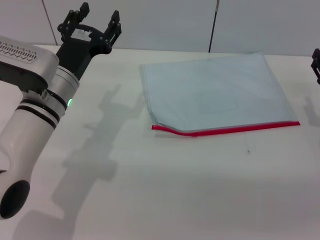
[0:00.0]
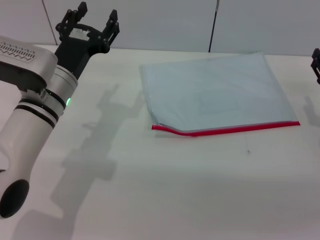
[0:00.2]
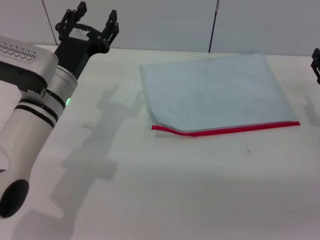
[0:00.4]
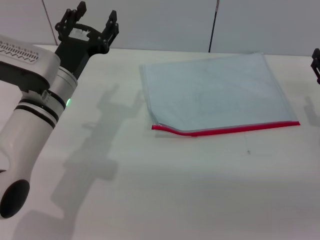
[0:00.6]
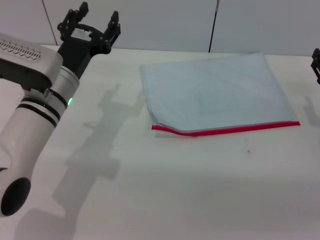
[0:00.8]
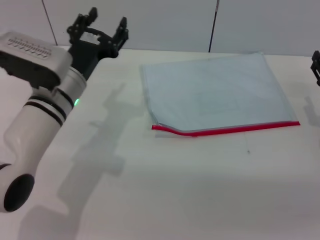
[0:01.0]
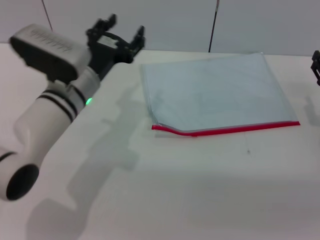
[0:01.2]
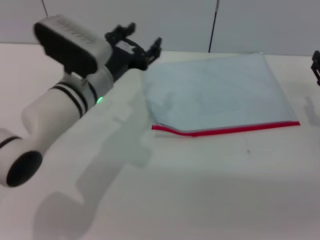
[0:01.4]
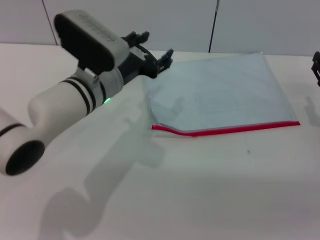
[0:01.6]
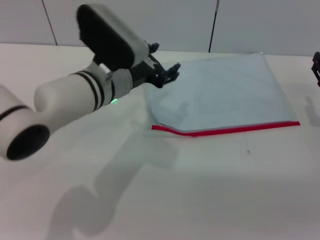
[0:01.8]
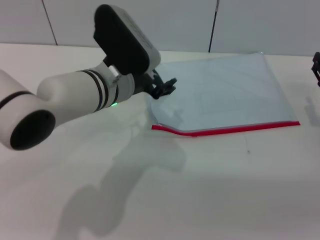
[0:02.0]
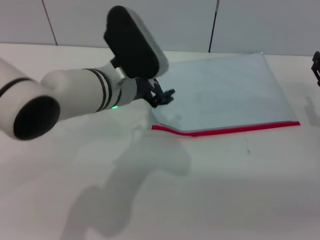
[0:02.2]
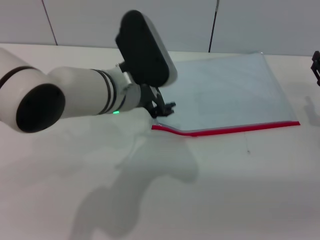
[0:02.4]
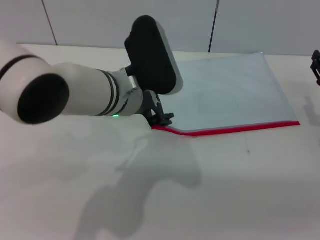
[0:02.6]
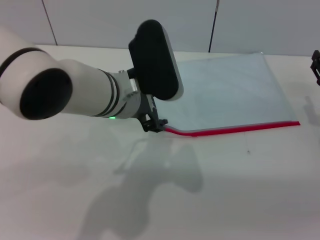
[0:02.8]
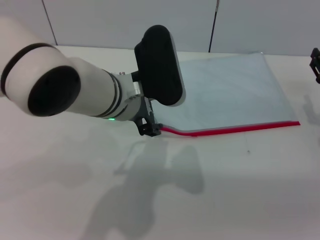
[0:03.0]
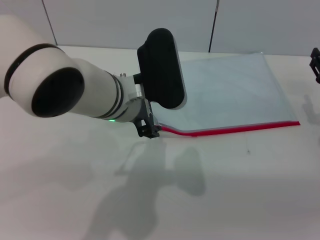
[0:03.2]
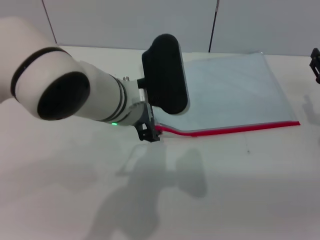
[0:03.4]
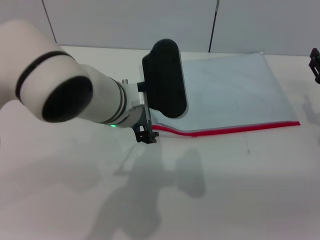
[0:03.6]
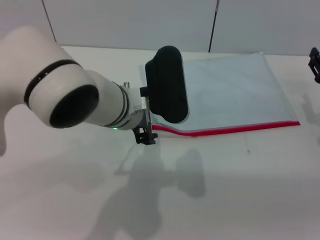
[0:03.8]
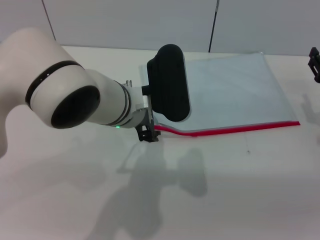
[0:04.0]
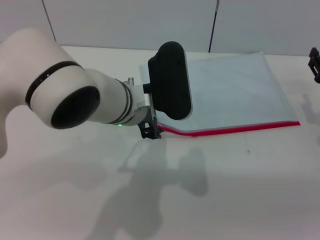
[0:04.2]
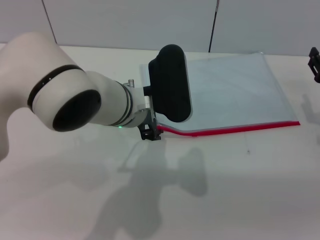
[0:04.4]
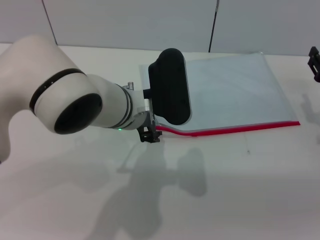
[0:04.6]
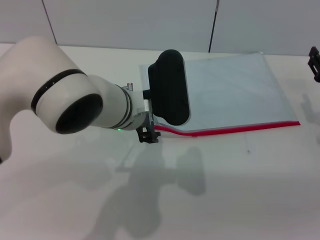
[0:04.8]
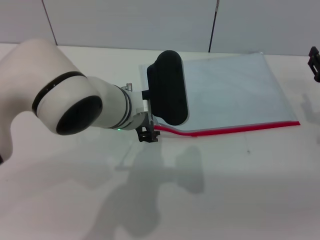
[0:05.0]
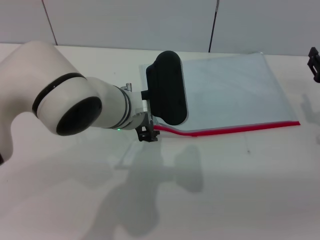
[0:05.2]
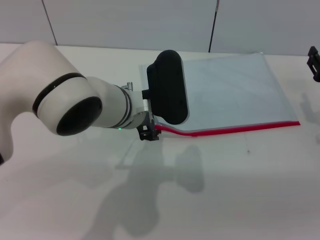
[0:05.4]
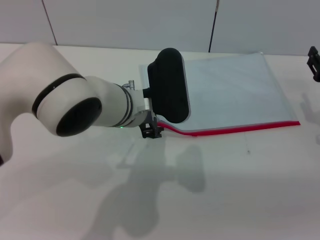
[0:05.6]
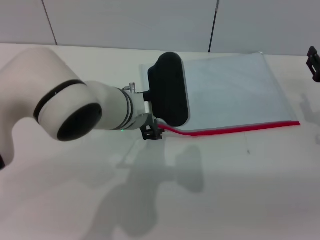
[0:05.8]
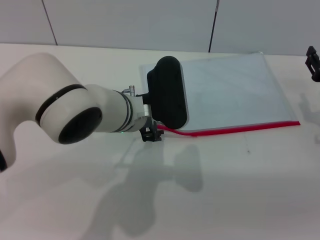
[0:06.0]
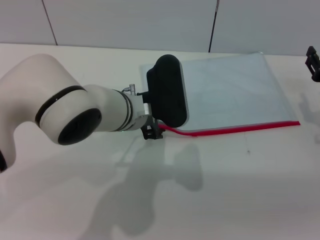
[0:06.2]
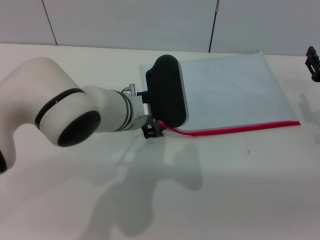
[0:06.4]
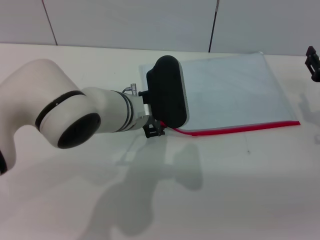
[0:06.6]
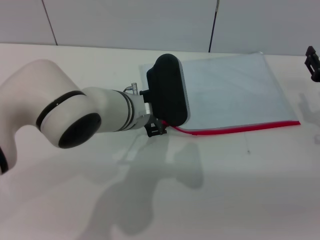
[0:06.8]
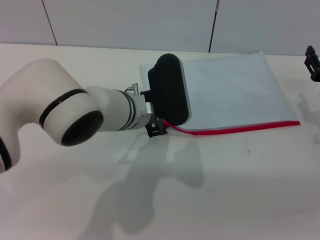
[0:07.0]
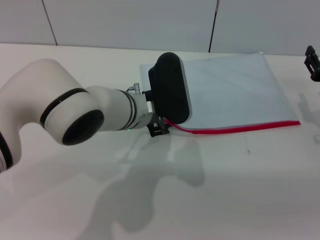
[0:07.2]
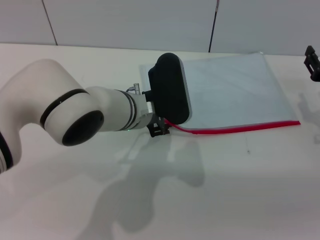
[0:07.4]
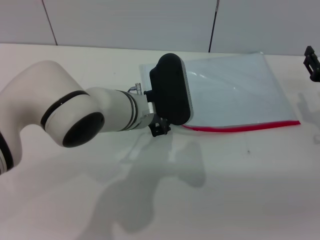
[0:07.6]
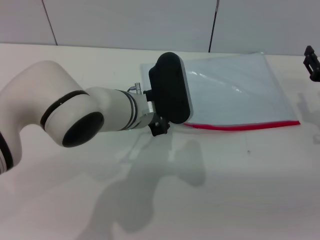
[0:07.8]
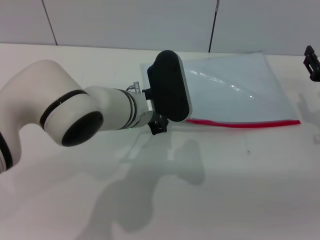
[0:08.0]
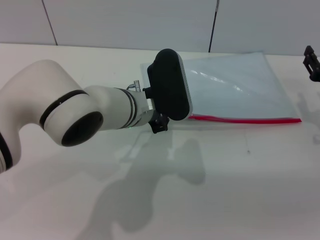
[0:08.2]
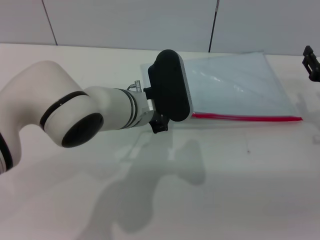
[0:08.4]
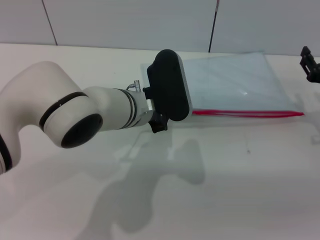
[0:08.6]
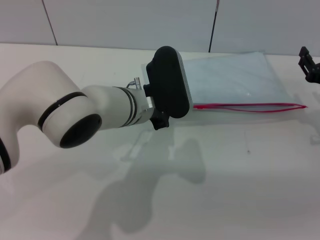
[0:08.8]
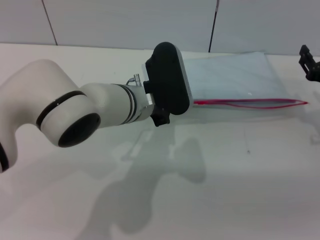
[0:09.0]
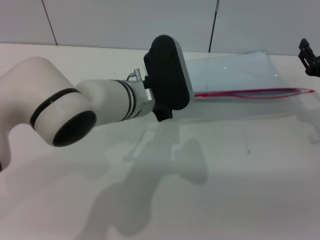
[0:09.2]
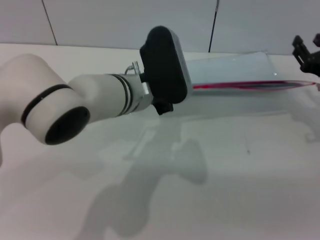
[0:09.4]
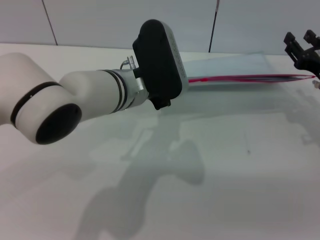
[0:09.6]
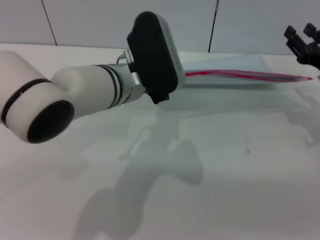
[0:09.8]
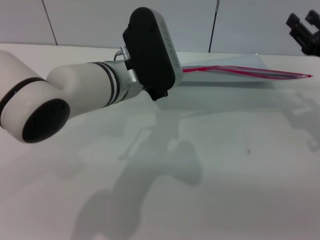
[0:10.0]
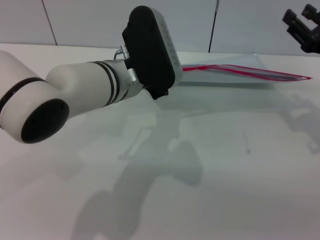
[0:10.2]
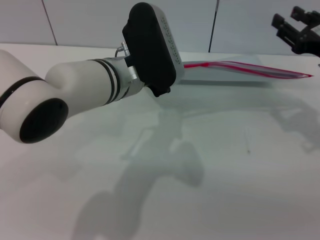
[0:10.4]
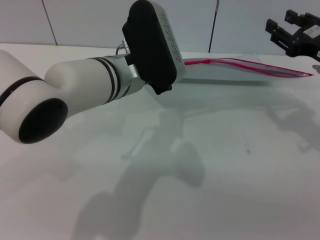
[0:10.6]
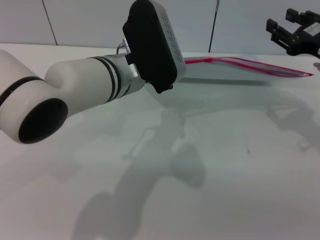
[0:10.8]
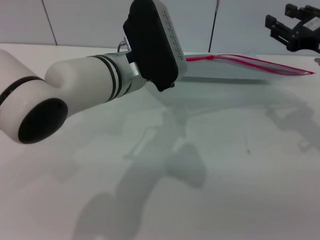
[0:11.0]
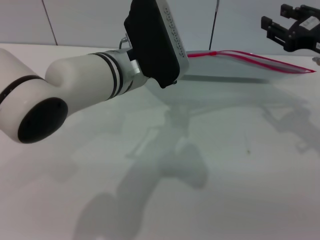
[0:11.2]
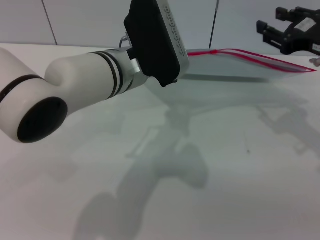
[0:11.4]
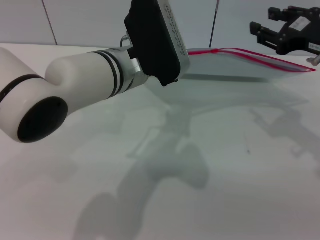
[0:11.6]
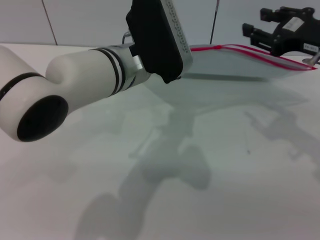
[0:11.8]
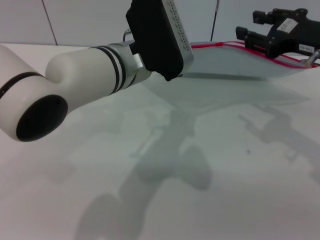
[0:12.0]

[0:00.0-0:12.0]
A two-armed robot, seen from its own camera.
Step, 0:00.0 to 0:09.4: Pick up the transparent plastic bag with the left gripper.
0:00.0 to 0:01.6: The left gripper travels to the right by roughly 5 cm.
0:01.6 to 0:03.0: The left gripper moves some 10 cm.
0:03.0 to 0:07.6: There are only small adjustments of the grippers.
0:07.6 to 0:09.0: The left gripper closes its fingers.
0:09.0 to 0:10.4: The left gripper ends up approximately 5 cm from where it was. The right gripper is displaced upward by some 10 cm.
0:10.4 to 0:12.0: The right gripper is displaced upward by approximately 5 cm.

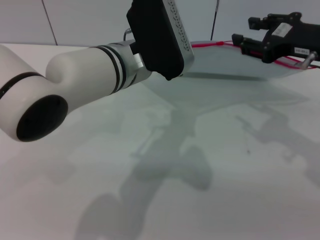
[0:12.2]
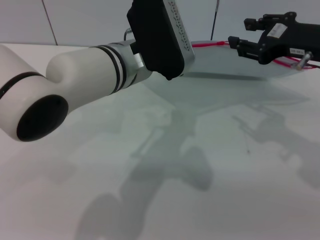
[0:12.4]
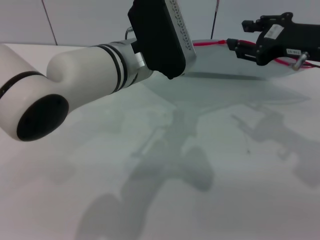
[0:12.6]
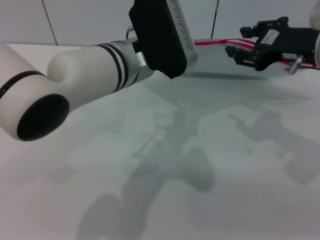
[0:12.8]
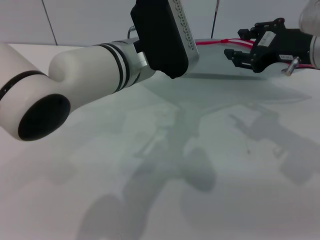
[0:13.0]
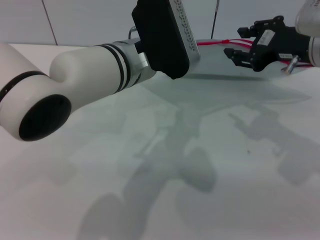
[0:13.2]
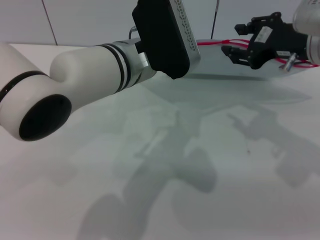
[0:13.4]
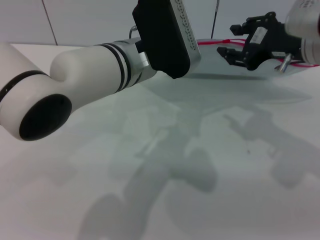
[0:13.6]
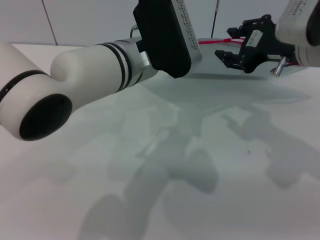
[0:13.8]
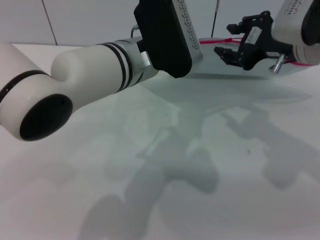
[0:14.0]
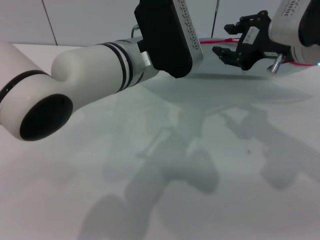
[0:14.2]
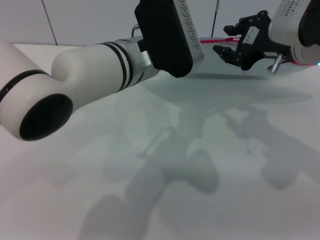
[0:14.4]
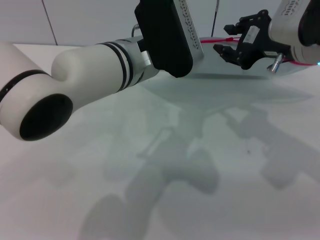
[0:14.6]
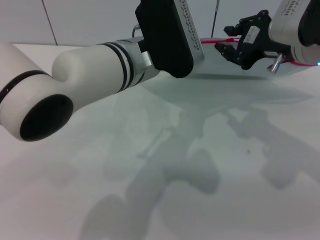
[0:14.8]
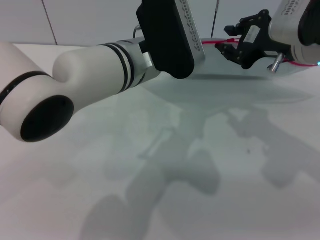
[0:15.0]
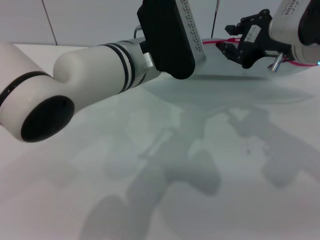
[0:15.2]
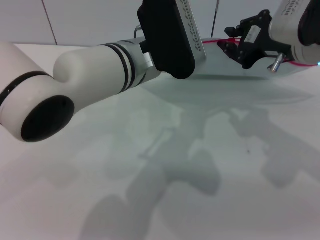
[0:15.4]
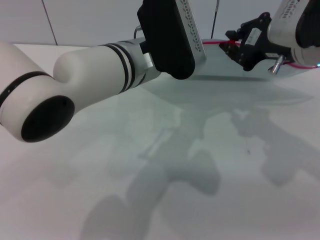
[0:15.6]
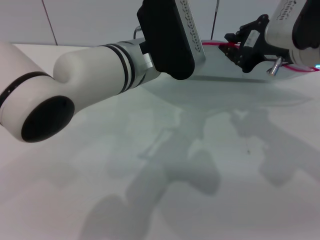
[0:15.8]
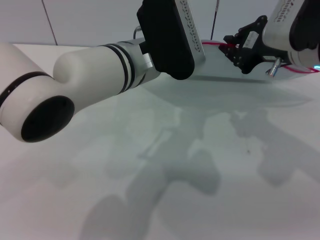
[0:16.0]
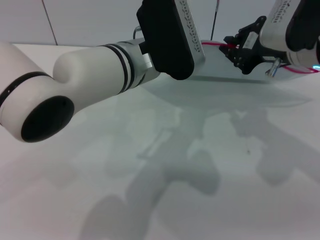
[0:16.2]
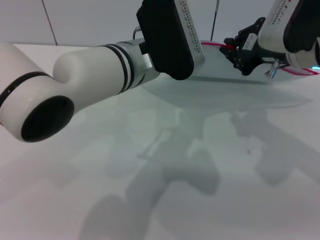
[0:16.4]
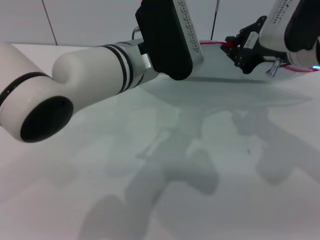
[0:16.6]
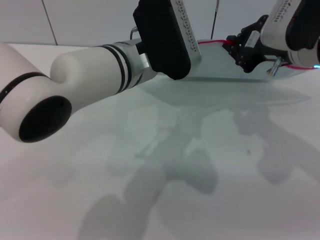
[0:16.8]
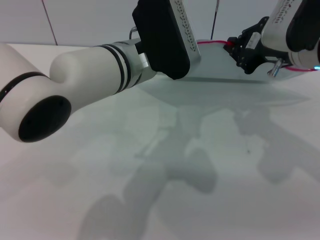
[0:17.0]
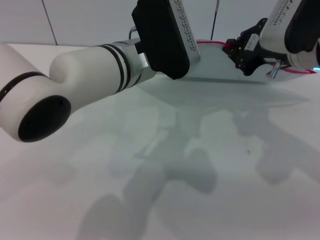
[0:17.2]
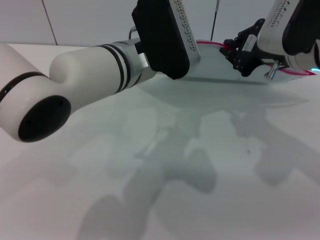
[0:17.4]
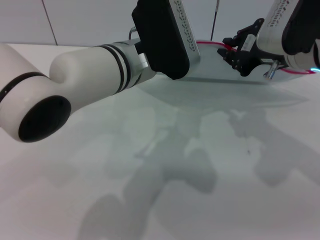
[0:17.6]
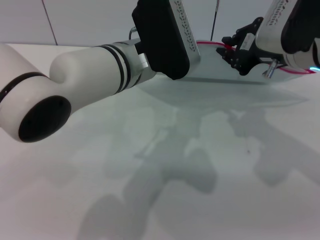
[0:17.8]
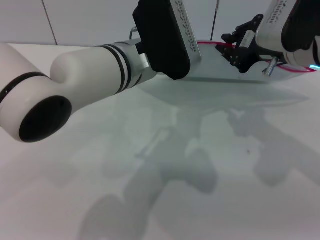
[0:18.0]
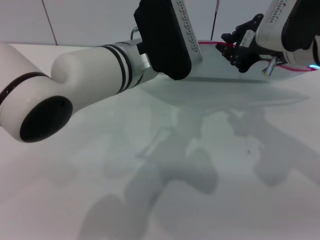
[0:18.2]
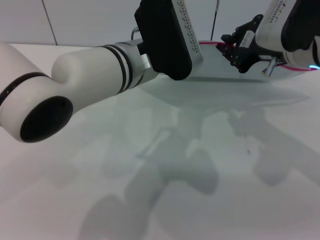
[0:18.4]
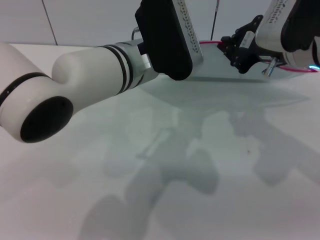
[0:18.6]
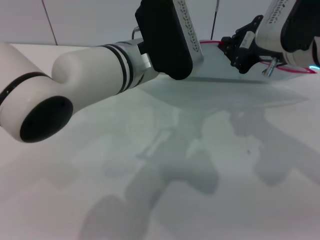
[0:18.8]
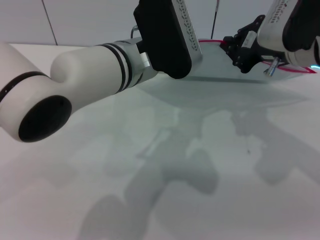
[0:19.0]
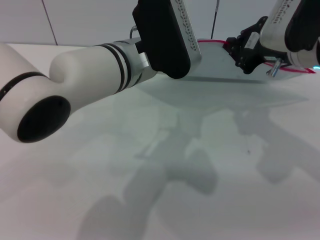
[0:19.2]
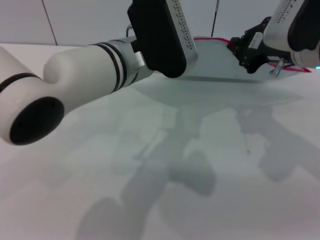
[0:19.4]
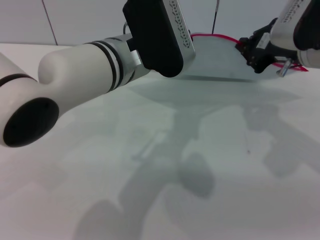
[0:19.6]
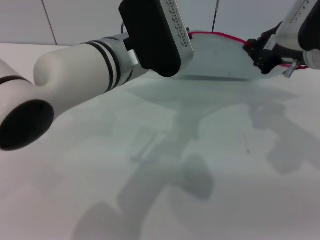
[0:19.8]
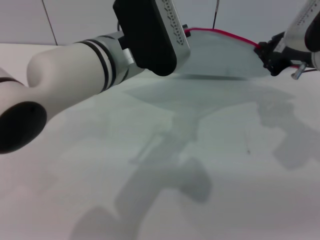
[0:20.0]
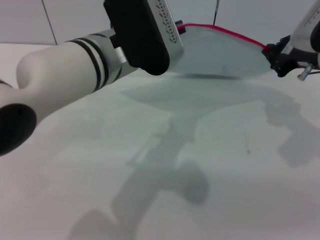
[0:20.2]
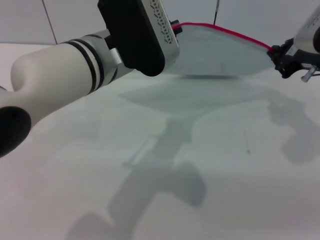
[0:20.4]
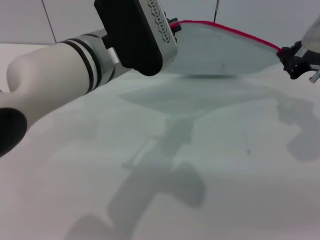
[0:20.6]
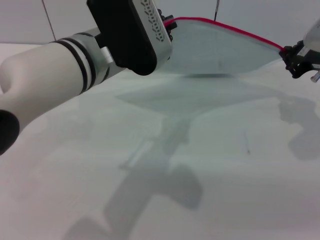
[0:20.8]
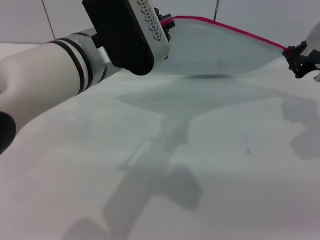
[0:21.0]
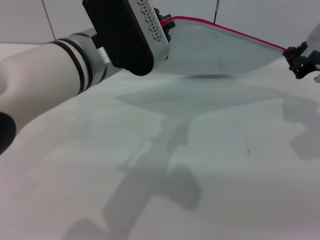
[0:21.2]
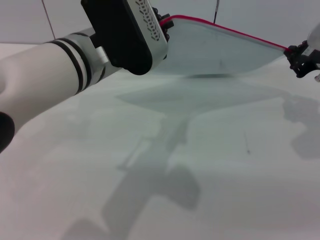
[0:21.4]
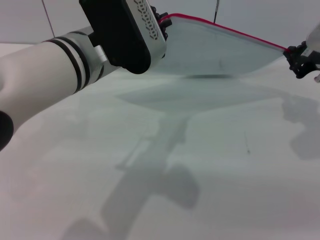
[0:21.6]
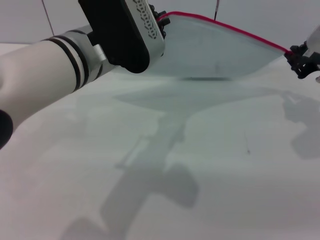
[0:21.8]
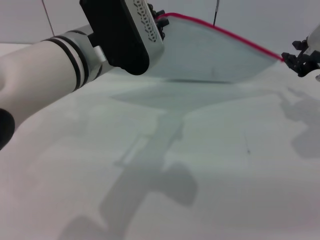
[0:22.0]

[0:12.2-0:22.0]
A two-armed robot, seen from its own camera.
Step, 0:12.2 to 0:21.8: Pulling up the zipper on the transparent plastic bag with the right gripper to close it.
0:12.2 to 0:13.6: There are only small adjustments of the grippers.
0:13.6 to 0:15.0: Neither gripper changes place.
0:15.0 to 0:16.4: The right gripper closes its fingers.
0:16.4 to 0:19.2: The two grippers keep their place.
0:19.2 to 0:20.6: The right gripper heads to the right, covering about 5 cm.
0:20.6 to 0:22.0: Both grippers stay about where they are.
